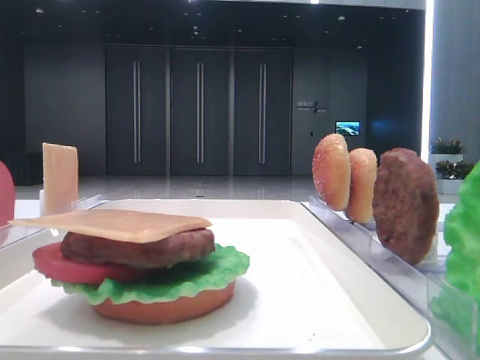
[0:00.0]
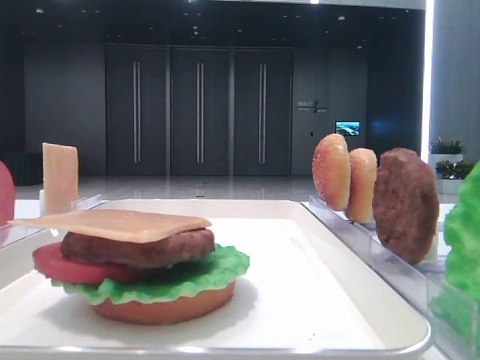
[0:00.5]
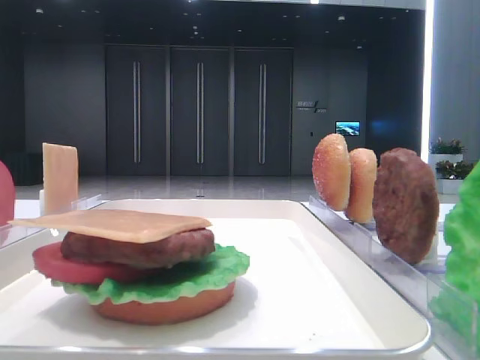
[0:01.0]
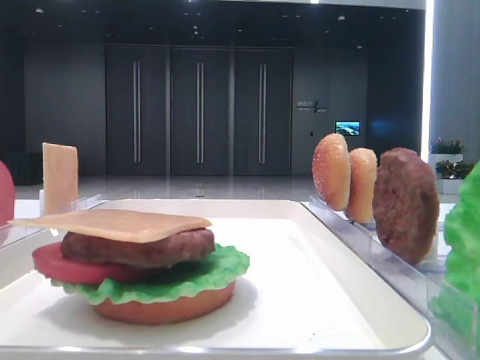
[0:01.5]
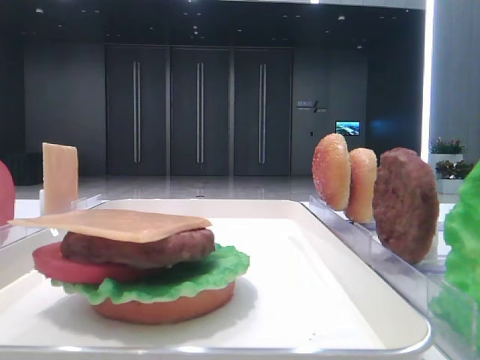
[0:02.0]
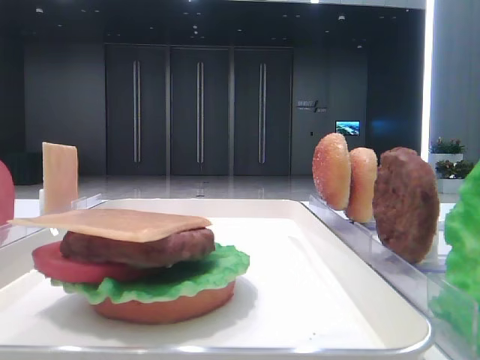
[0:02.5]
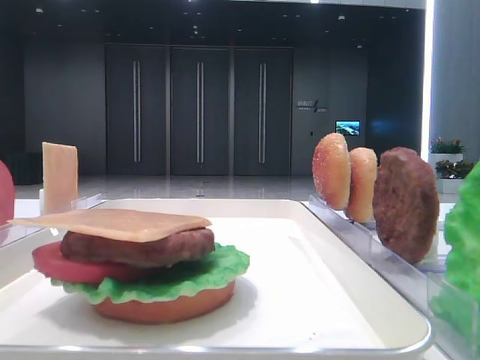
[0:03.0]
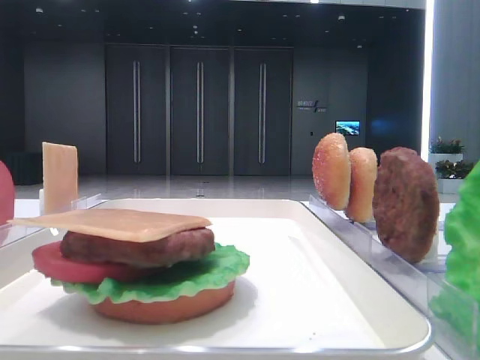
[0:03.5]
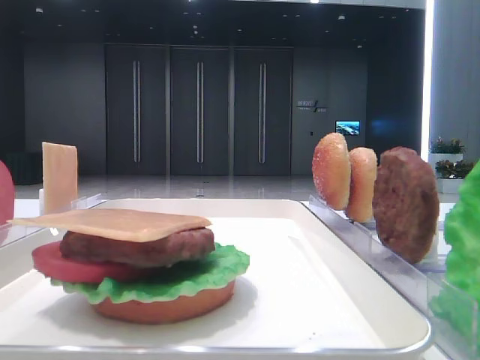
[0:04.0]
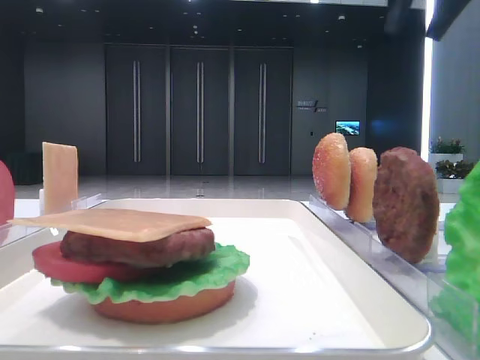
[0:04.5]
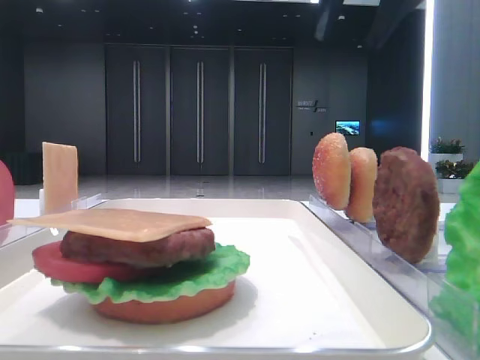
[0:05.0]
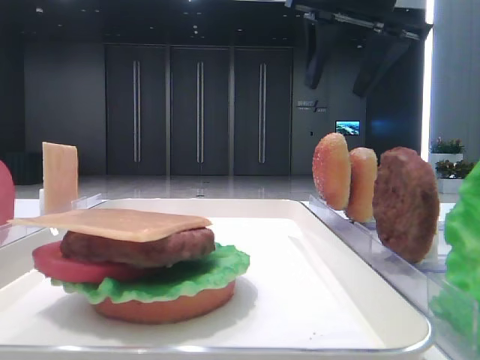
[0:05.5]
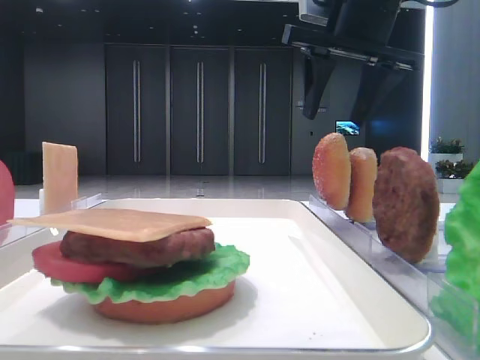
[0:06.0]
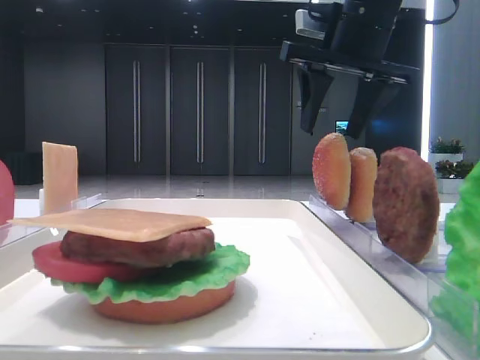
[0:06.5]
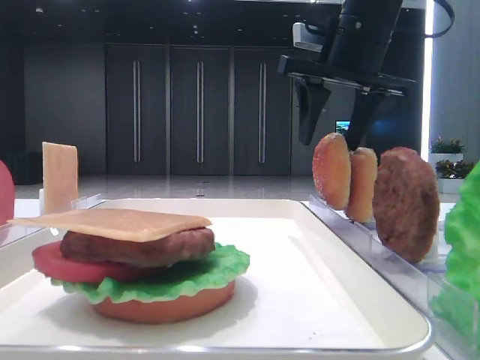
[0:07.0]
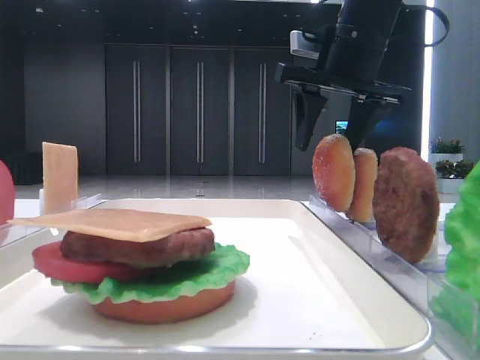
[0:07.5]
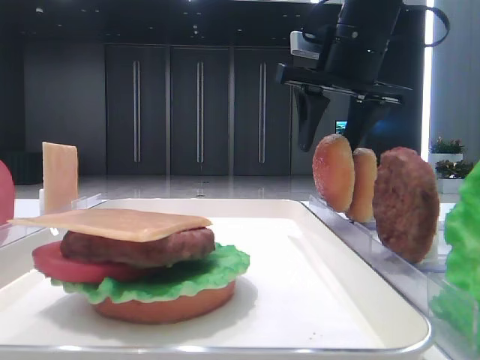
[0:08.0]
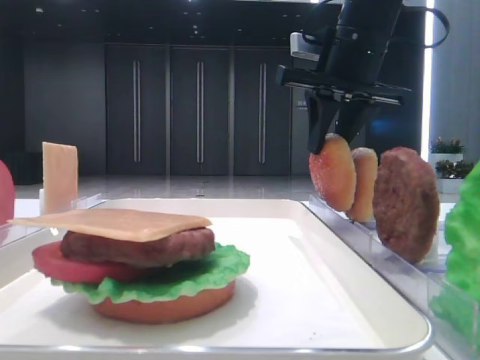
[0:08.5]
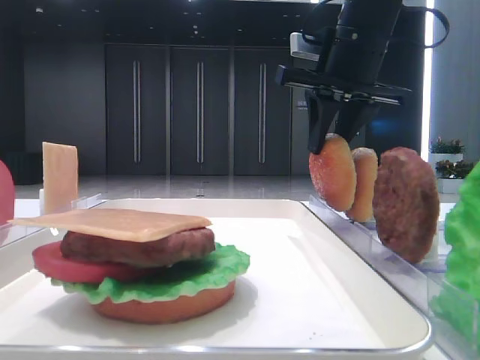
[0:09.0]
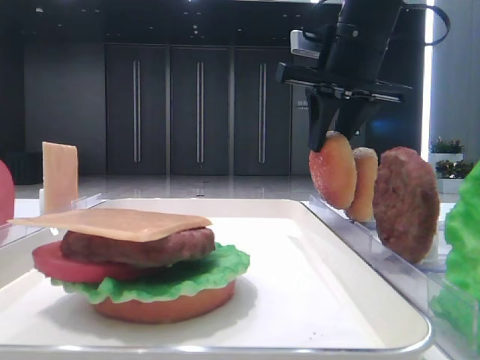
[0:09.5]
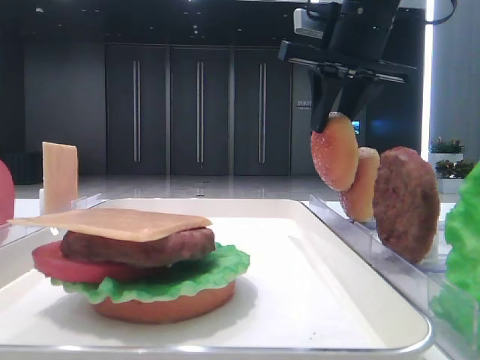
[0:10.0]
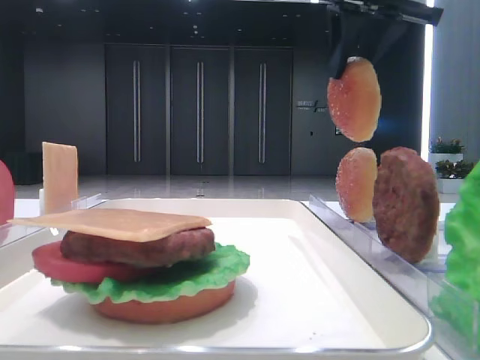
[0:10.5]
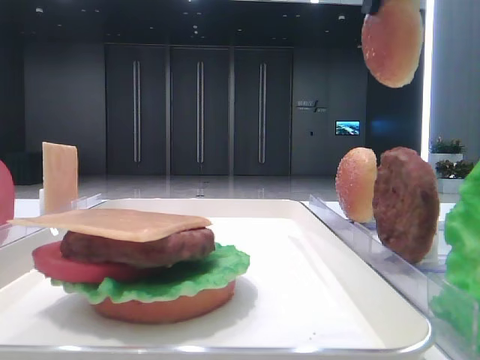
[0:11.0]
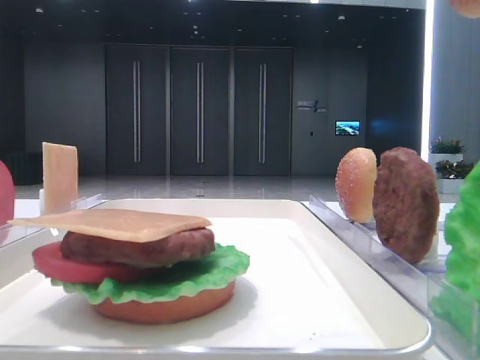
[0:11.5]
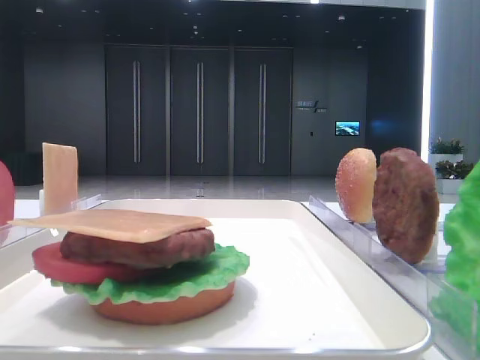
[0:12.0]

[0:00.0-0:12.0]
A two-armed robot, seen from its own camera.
Step, 0:00.0 to 0:09.0: Pick up the top bread slice with the right hand.
0:04.0 to 0:06.0: The right gripper travels to the left and downward by roughly 20 cm, and opens.
0:06.0 to 0:08.0: The grippers make only small movements.
0:08.0 to 0:10.0: The right gripper closes its fingers.
0:10.0 to 0:12.0: The right gripper heads backward and upward, covering about 35 cm.

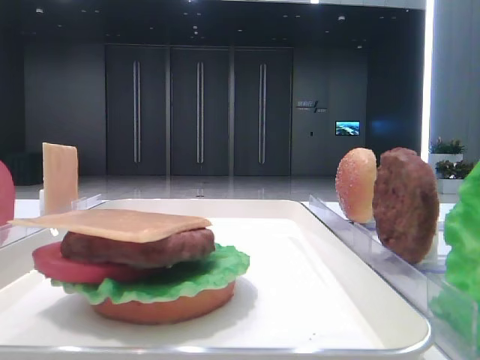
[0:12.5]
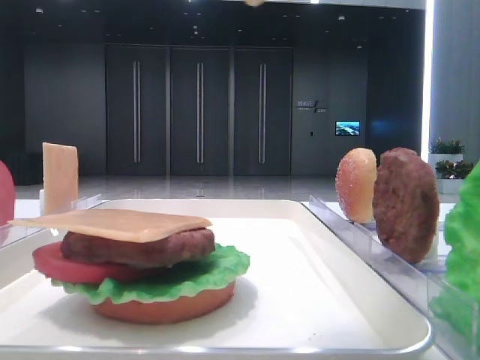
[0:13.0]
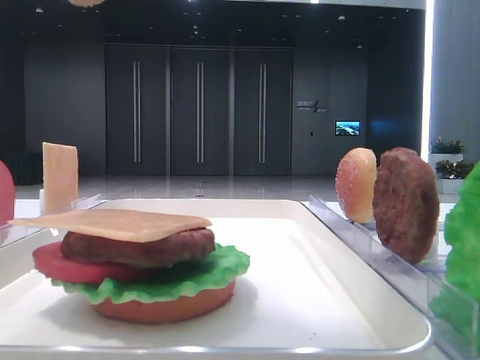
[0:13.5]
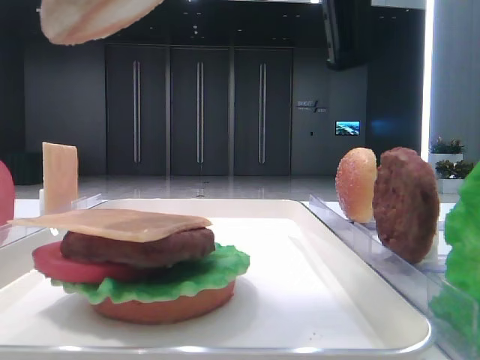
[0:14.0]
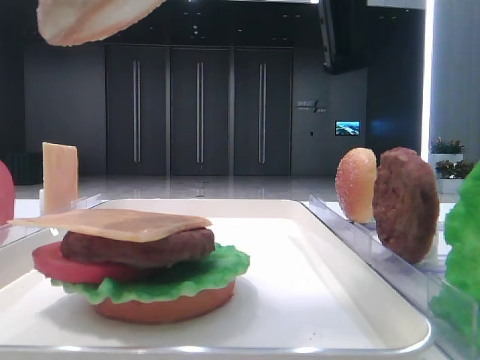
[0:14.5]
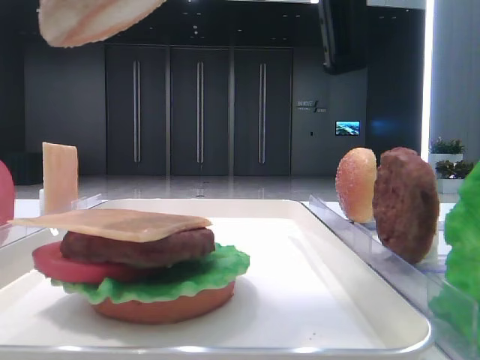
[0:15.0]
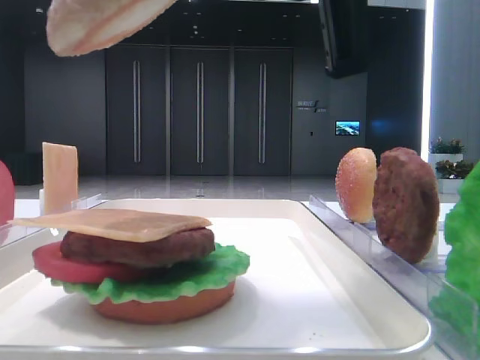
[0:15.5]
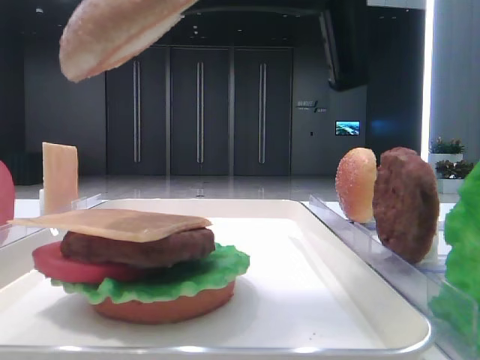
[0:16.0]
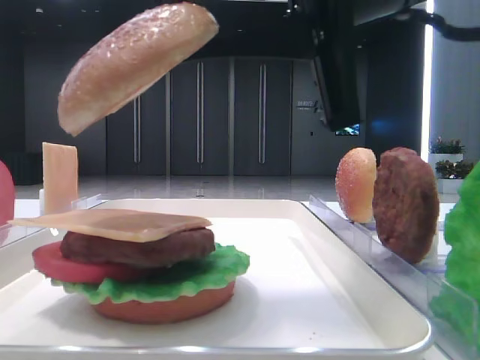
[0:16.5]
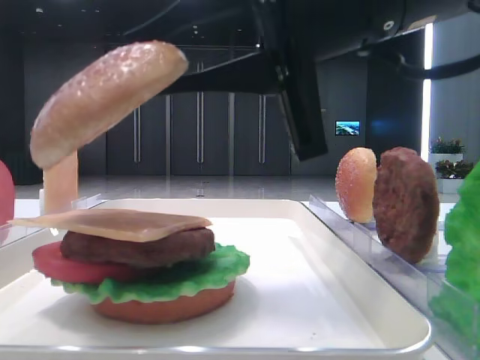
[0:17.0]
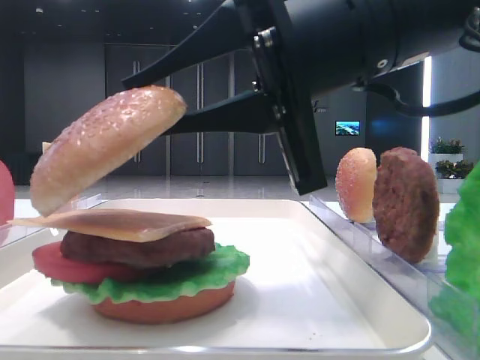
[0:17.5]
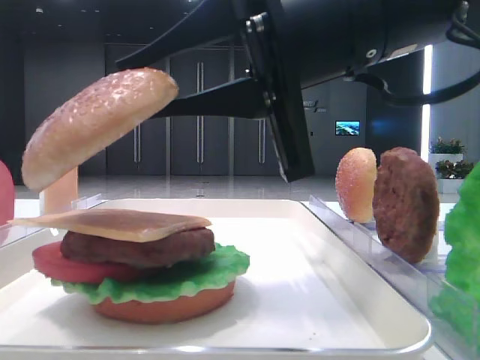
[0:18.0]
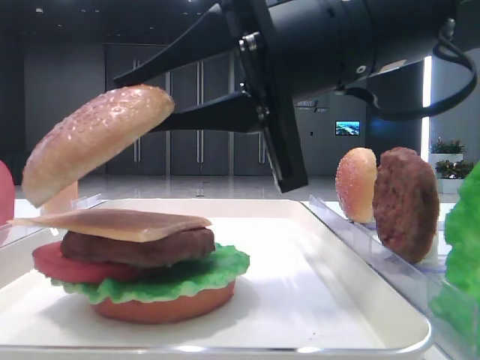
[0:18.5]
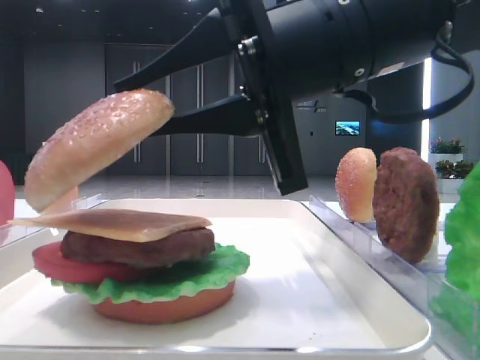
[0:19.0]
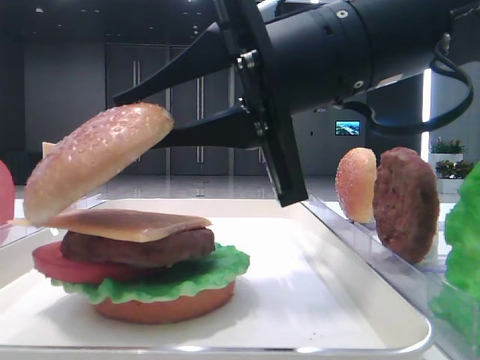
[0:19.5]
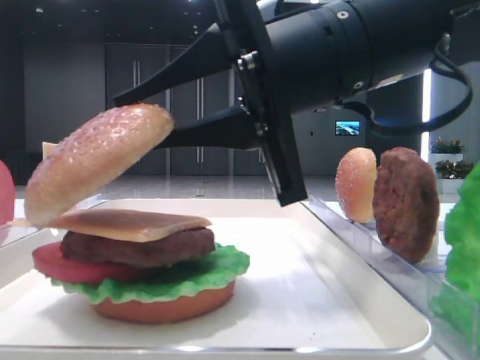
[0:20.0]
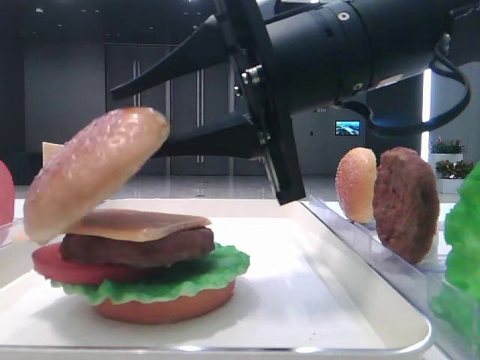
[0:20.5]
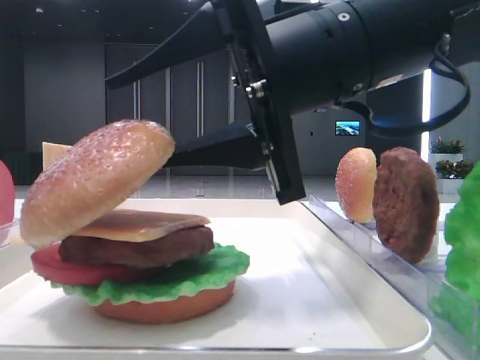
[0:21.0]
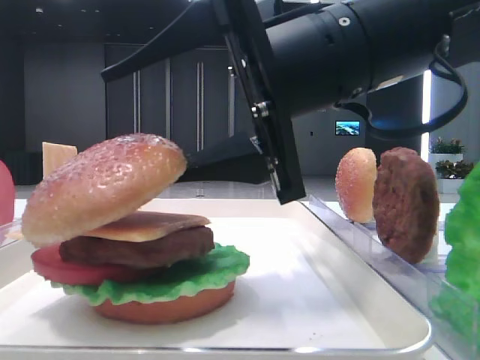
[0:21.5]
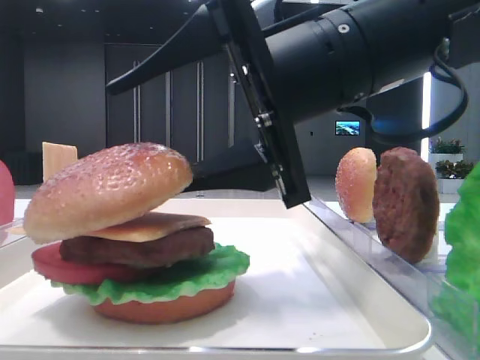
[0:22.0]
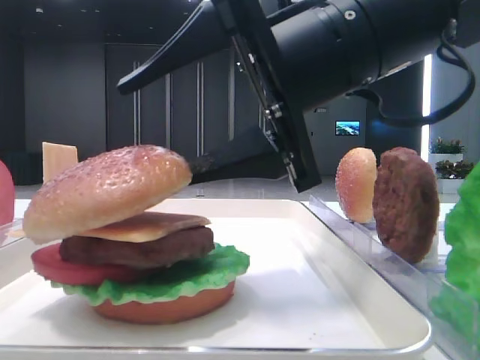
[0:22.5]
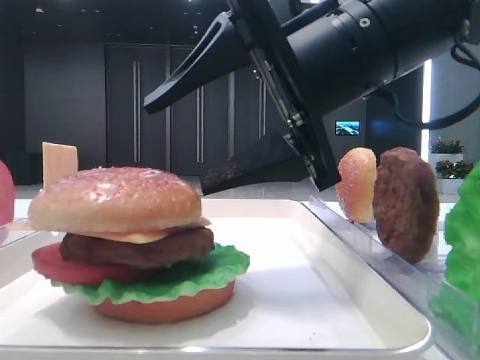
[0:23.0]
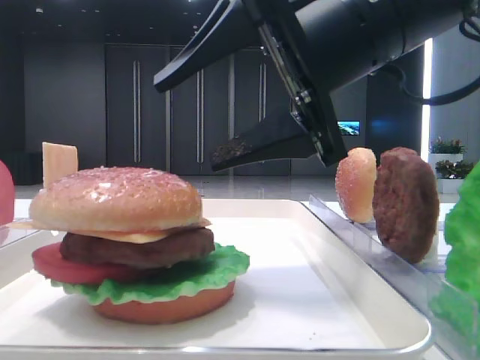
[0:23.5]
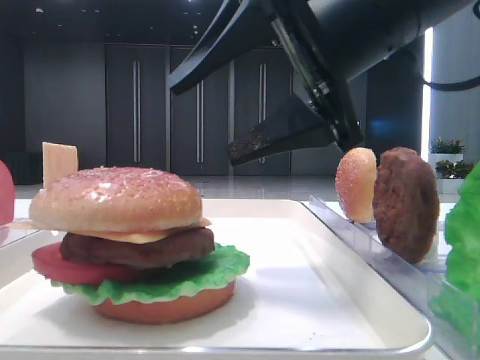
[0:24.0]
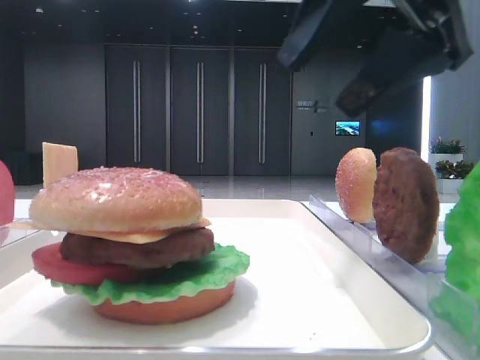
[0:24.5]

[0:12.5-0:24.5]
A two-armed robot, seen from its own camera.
Step, 0:12.5 to 0:22.5: Place the top bread slice on the cheese with the right hand.
0:12.5 to 0:14.5: The right gripper heads forward, to the left and downward, covering approximately 20 cm.
0:14.5 to 0:16.5: There are only small adjustments of the grippers.
0:16.5 to 0:18.5: The right gripper shifts by about 5 cm.
0:18.5 to 0:20.5: Neither gripper changes place.
0:20.5 to 0:22.5: The right gripper opens up.
0:22.5 to 0:24.5: The right gripper shifts approximately 10 cm upward and to the right.

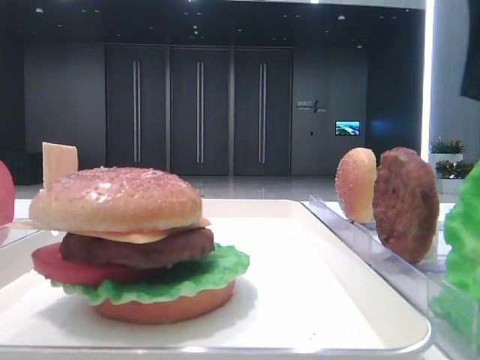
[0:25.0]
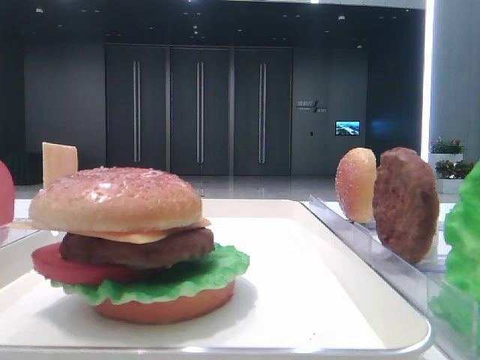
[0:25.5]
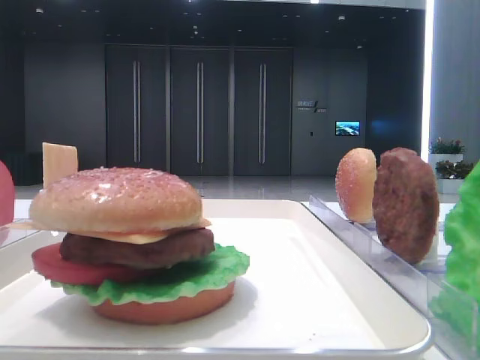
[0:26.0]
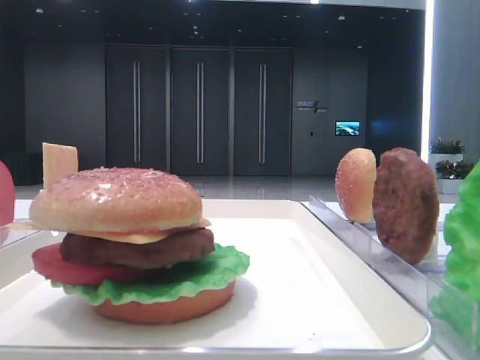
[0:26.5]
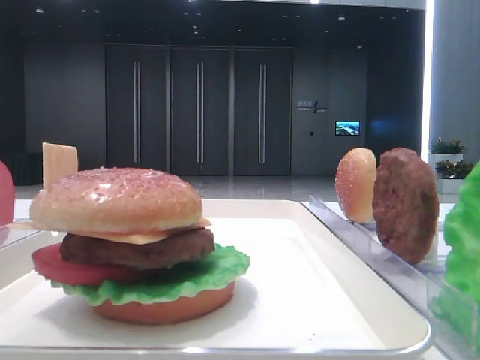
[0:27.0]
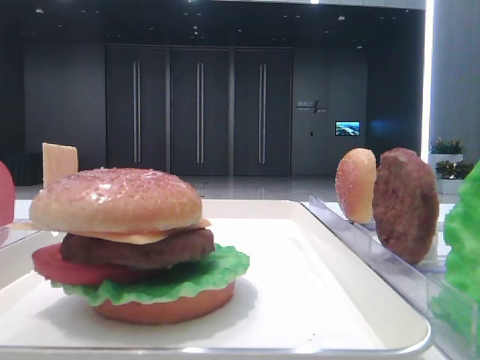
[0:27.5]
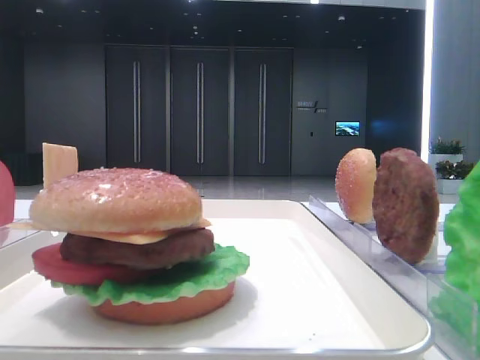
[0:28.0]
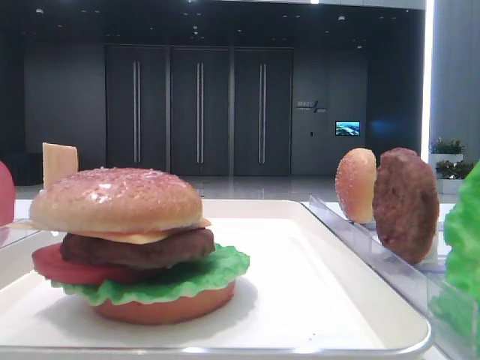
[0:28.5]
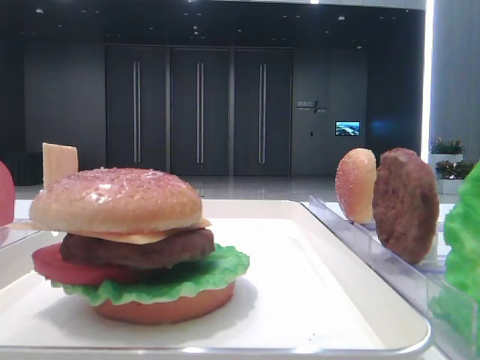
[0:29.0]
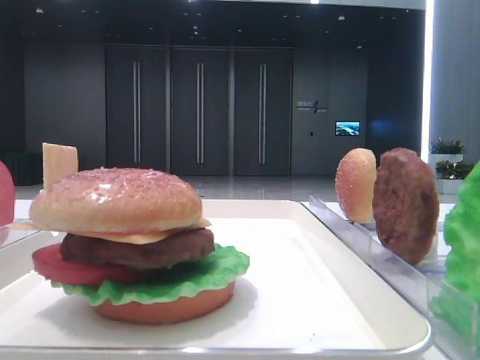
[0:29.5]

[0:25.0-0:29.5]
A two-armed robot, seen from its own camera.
0:25.0 to 0:27.0: The right gripper is displaced backward and to the right by some 20 cm.
